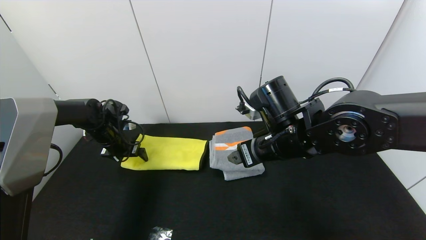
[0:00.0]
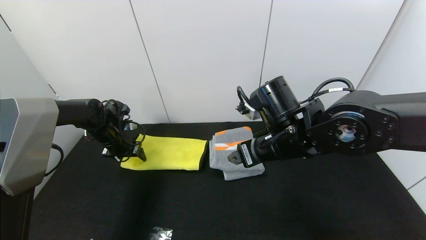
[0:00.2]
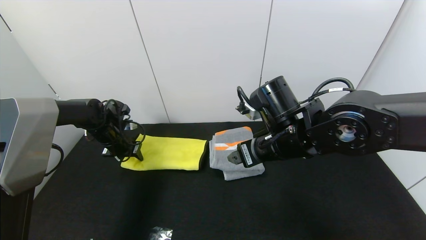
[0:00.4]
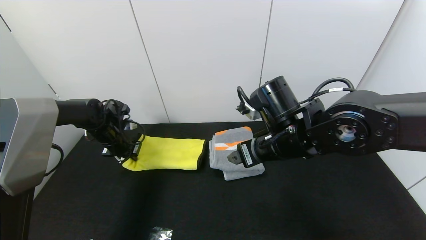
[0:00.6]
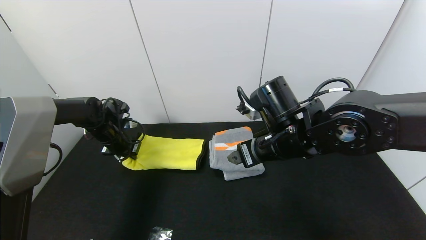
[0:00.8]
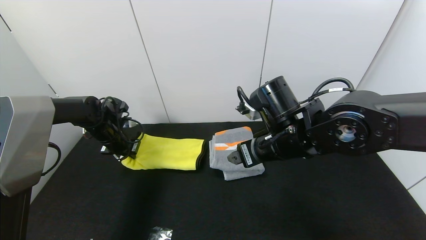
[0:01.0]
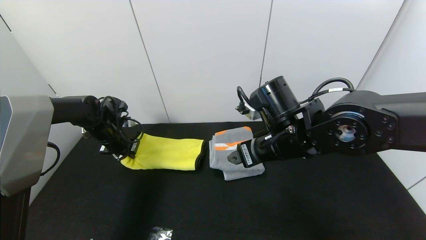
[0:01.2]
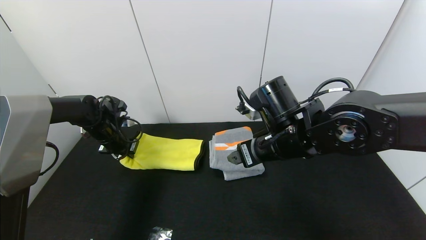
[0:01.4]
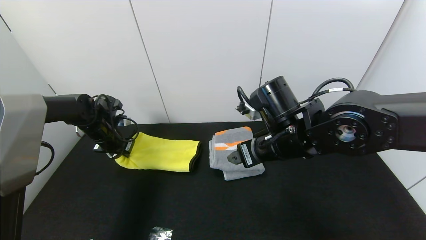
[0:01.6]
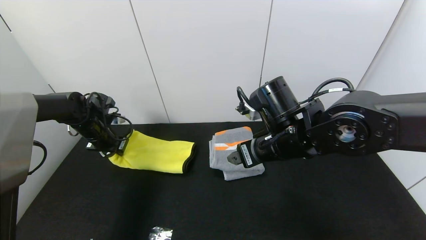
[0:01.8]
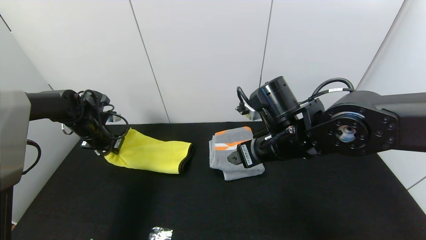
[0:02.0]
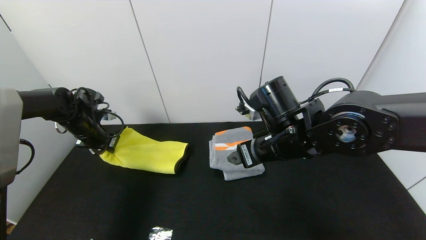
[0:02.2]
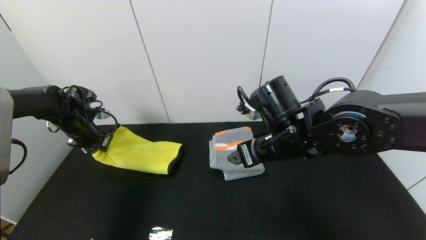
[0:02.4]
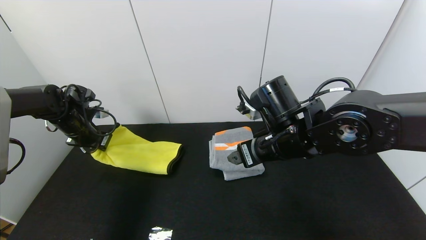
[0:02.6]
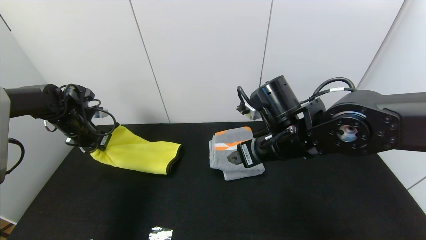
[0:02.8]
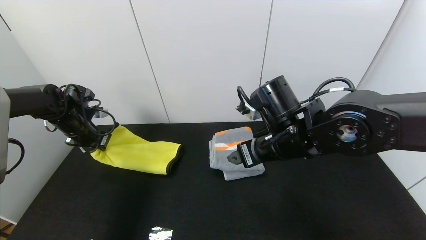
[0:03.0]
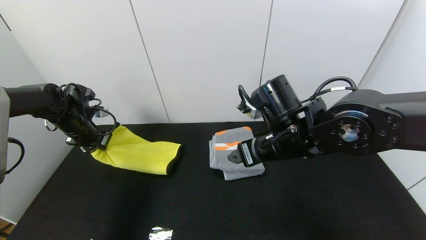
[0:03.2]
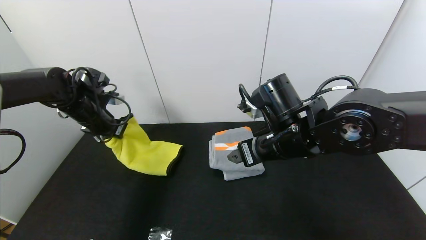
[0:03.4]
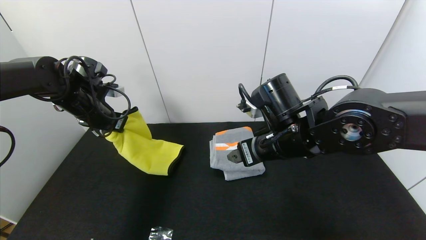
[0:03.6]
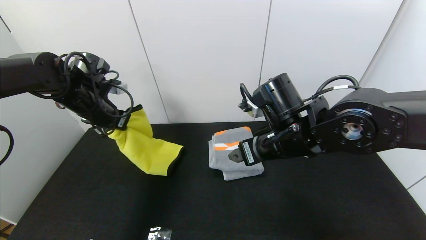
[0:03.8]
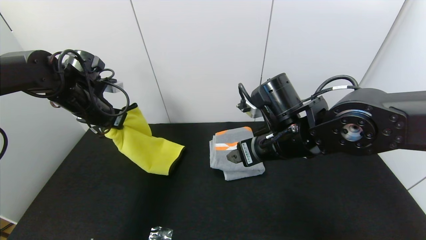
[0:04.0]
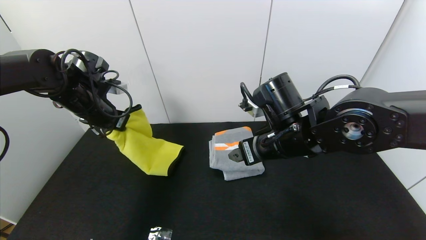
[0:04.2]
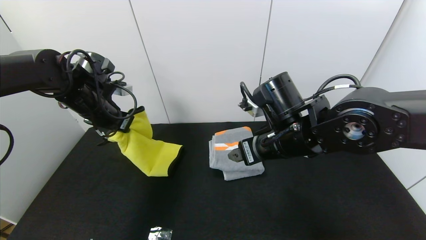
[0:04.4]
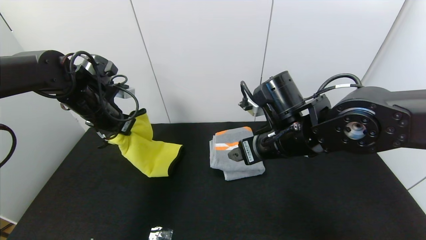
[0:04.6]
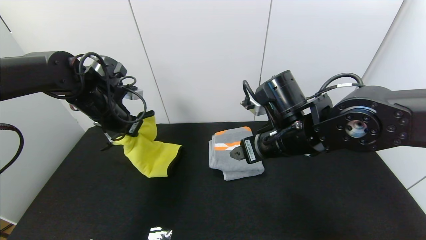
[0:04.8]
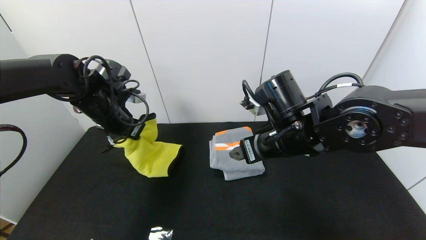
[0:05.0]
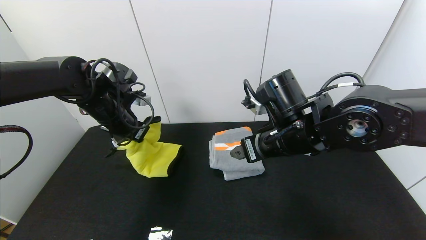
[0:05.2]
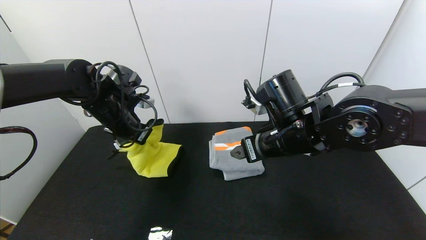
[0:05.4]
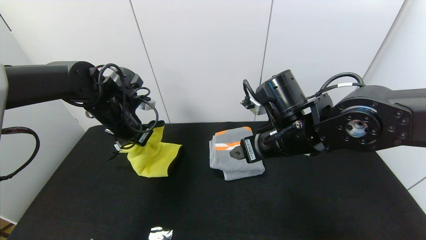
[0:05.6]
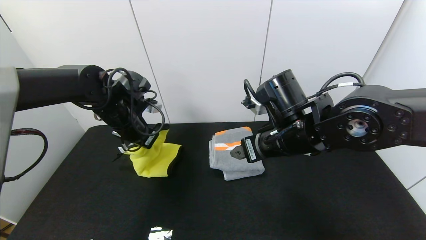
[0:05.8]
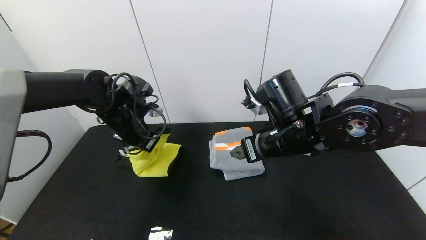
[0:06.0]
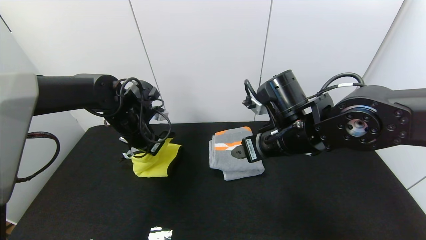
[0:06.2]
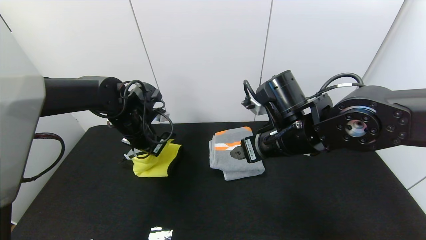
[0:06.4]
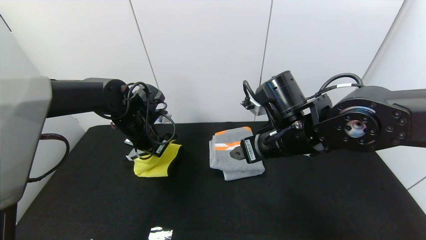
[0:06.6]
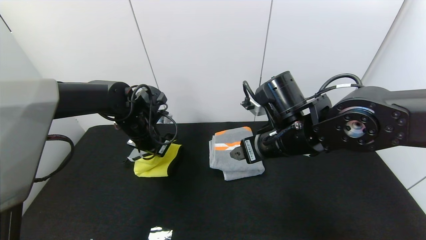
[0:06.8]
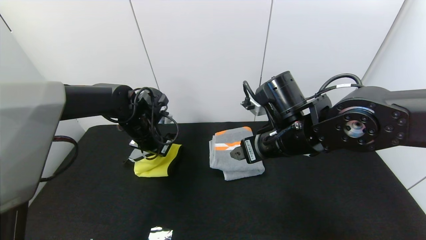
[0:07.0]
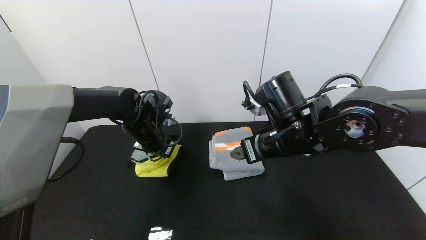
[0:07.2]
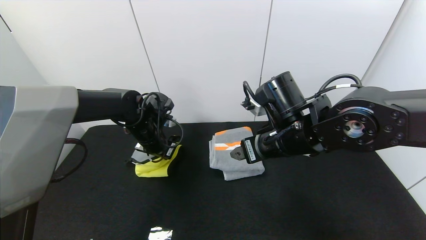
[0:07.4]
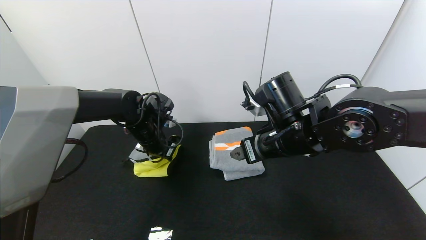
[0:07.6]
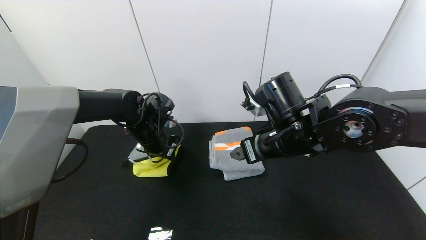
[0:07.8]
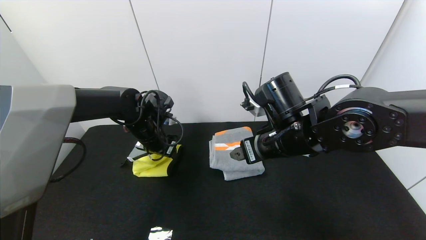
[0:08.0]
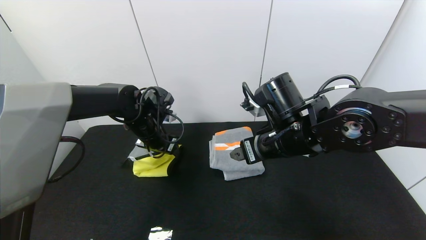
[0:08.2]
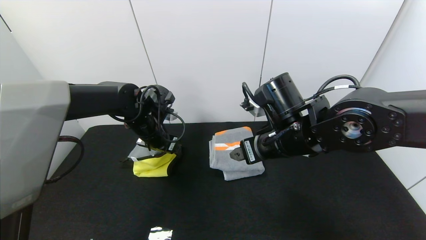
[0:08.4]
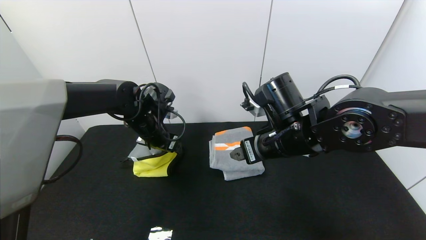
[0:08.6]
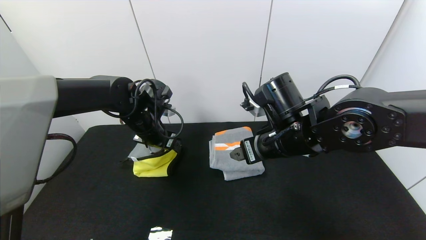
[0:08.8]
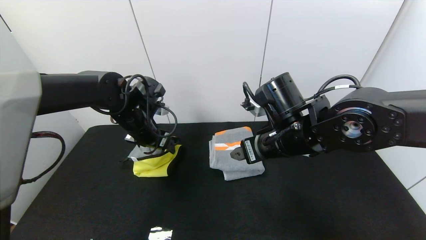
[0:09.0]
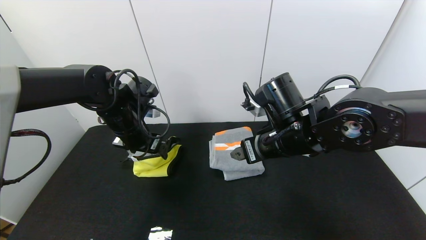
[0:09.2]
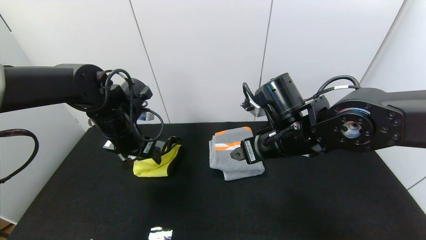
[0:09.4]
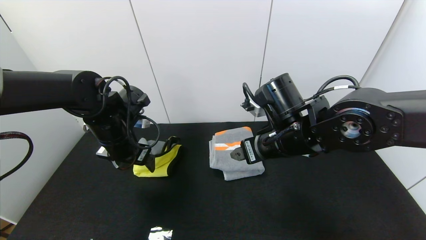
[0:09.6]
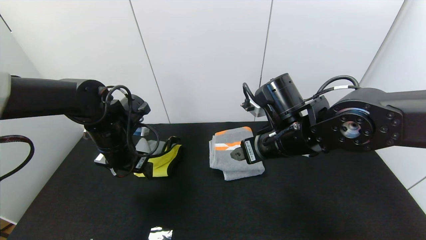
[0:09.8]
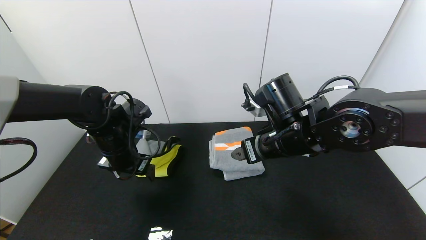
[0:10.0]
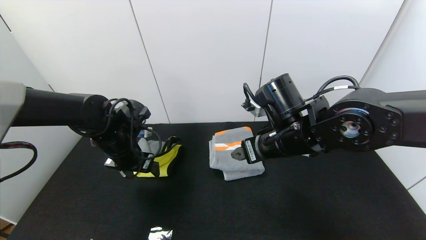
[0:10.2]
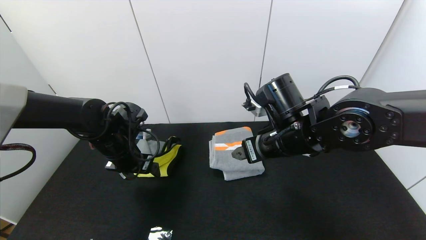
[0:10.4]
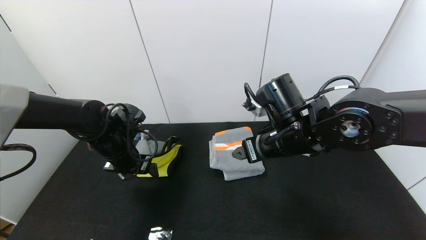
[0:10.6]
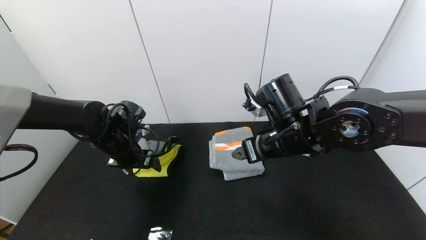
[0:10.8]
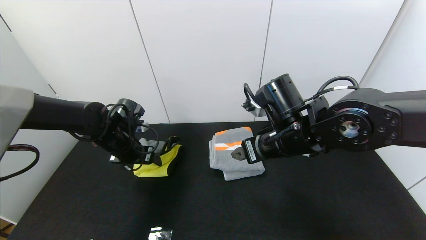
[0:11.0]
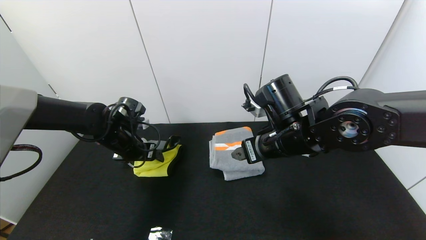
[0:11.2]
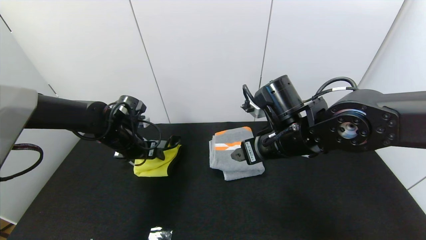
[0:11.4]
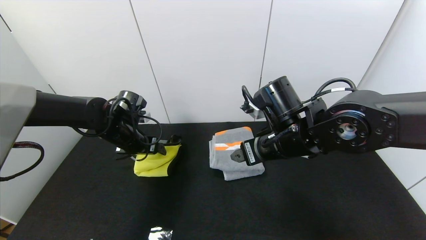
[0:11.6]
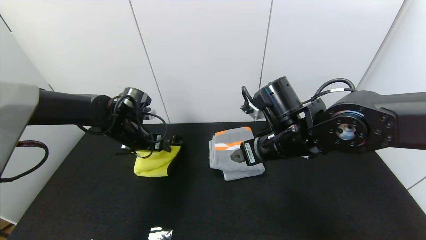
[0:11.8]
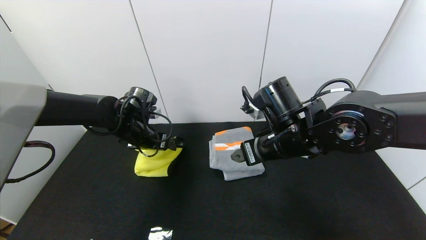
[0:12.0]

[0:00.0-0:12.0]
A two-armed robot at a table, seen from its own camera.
Task of the whole recording: Use the gripper to fold the yellow towel and grey towel in half twice,then put the yellow towel on the grey towel.
Step, 0:00.0 to 0:08.8: Fold the yellow towel from left to right with left gripper.
0:00.0 to 0:01.6: The left gripper closes up.
0:01.6 to 0:03.0: The left gripper moves about 5 cm.
0:03.0 to 0:04.4: The left gripper travels to the right and upward by approximately 15 cm.
0:04.4 to 0:06.0: The left gripper is displaced to the right by roughly 5 cm.
0:06.0 to 0:07.6: The left gripper ends up roughly 5 cm from where it was, and opens up.
0:07.6 to 0:09.0: The left gripper opens its fingers.
0:09.0 to 0:10.4: The left gripper ends up roughly 5 cm from where it was.
0:10.4 to 0:12.0: The left gripper moves approximately 5 cm.

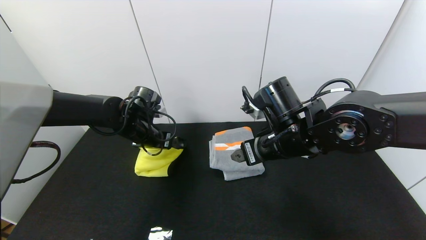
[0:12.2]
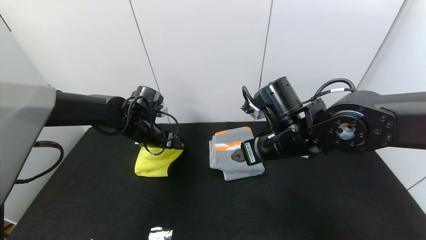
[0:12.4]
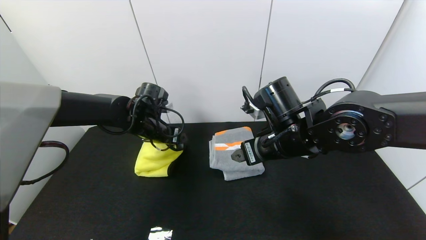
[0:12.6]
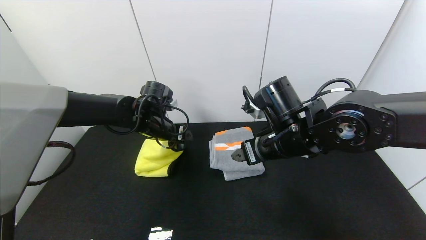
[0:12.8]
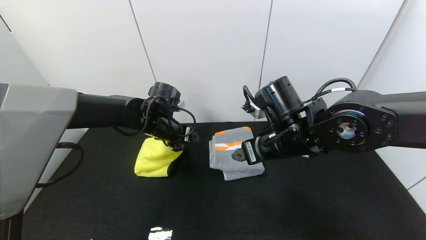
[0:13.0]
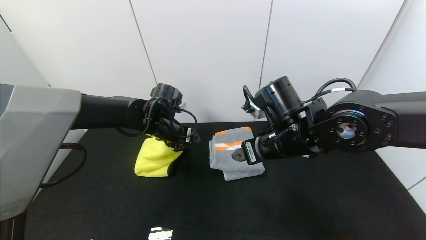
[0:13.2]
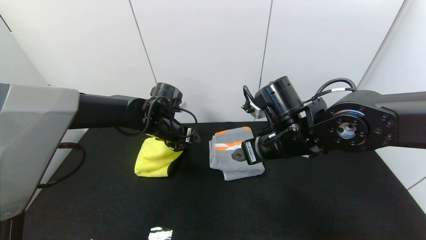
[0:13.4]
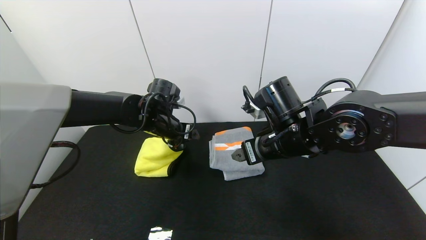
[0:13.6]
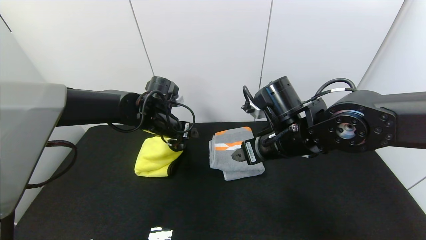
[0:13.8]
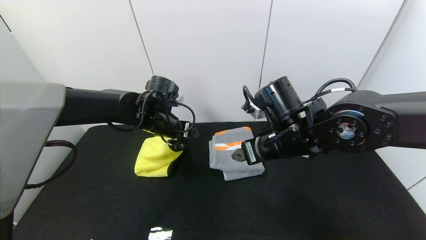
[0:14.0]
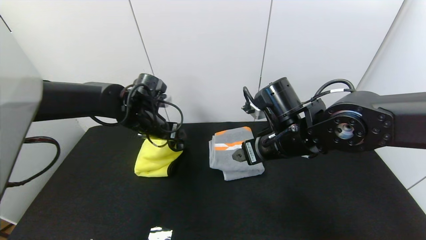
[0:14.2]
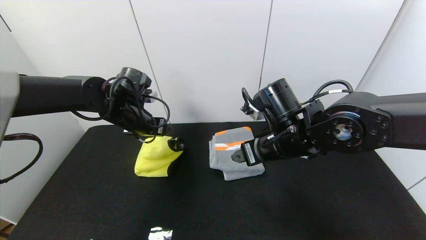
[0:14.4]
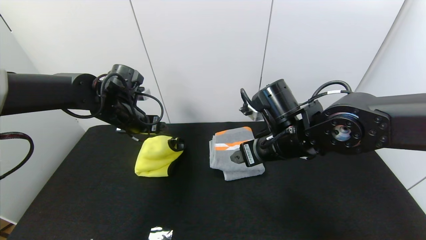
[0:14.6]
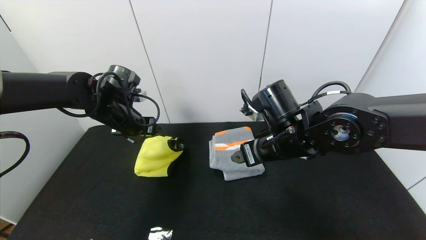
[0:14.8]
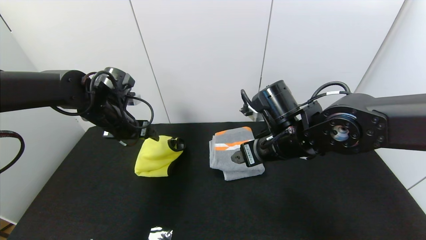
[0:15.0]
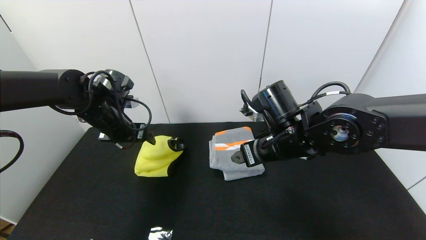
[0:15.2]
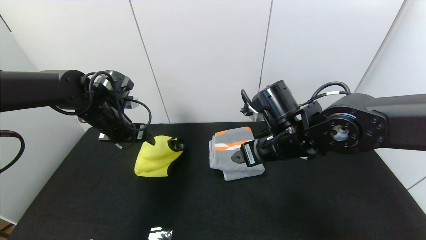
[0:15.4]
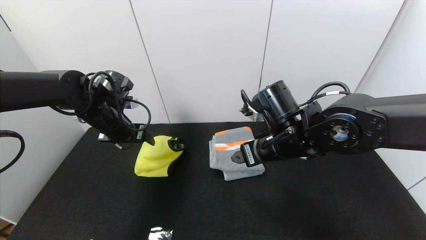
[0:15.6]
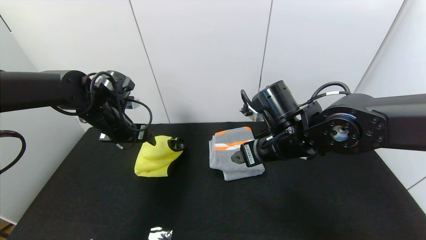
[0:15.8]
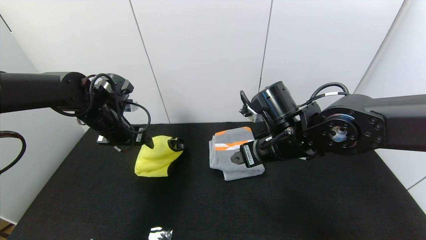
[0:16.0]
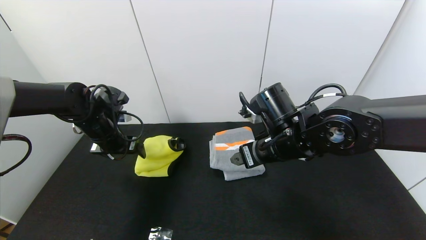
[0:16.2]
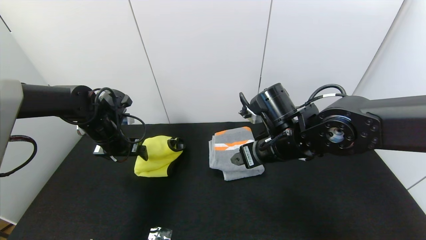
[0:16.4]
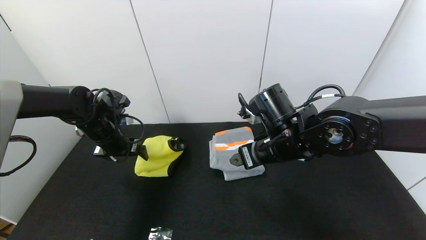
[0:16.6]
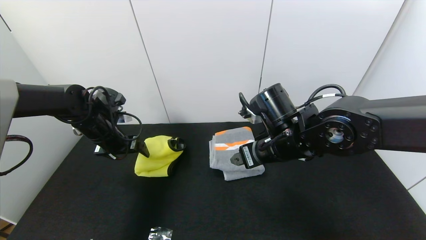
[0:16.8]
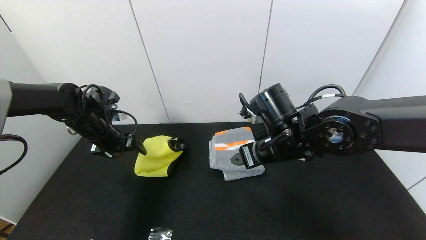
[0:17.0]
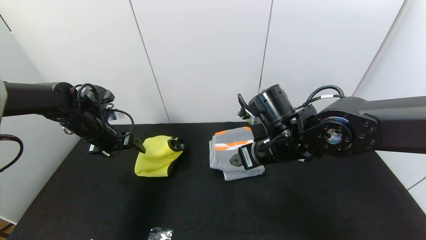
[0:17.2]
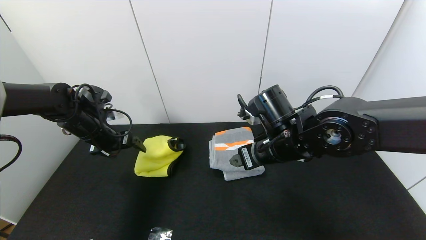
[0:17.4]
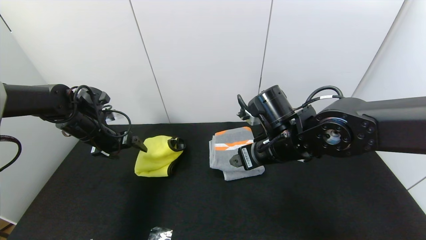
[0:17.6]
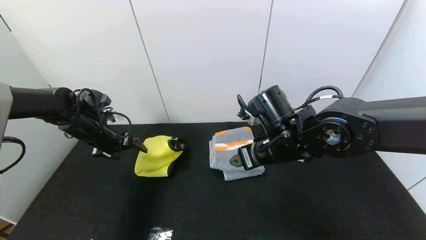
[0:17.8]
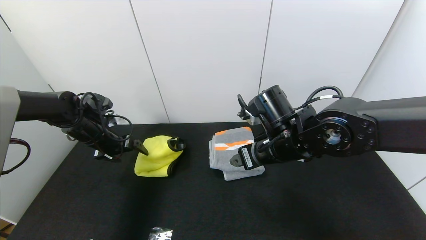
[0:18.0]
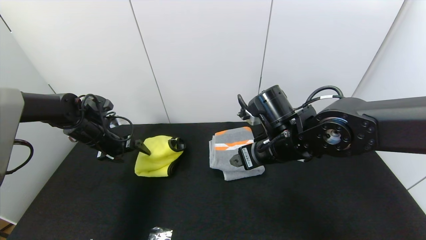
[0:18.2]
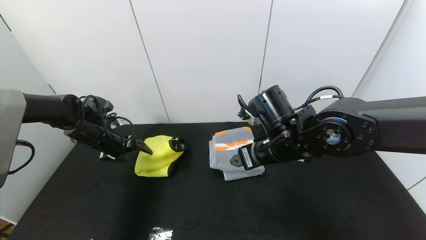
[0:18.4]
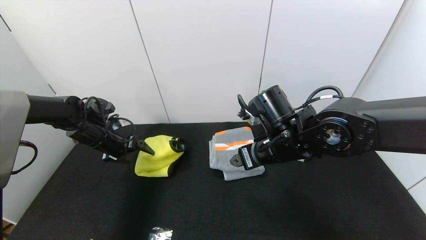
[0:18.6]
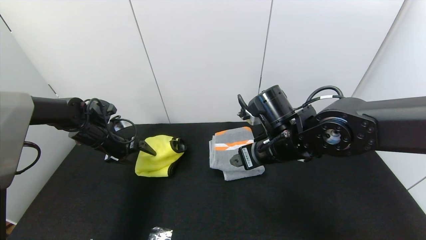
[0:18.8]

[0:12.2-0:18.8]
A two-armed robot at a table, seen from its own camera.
Task of the whole recording: Use the gripper to fold the yellow towel and grey towel in half twice,then put the yellow towel on the grey towel.
0:12.2 to 0:13.8: The left gripper shifts by about 5 cm.
0:13.8 to 0:15.4: The left gripper heads to the left, covering some 10 cm.
0:15.4 to 0:17.2: The left gripper is displaced to the left by about 5 cm.
0:17.2 to 0:18.8: The left gripper ends up some 5 cm from where it was.
